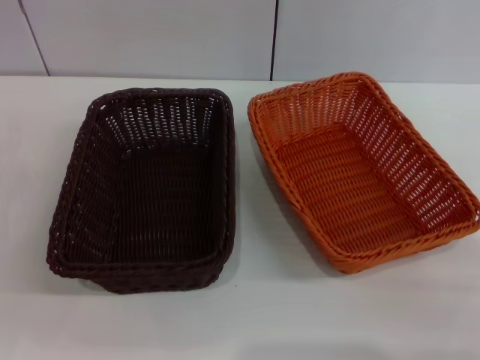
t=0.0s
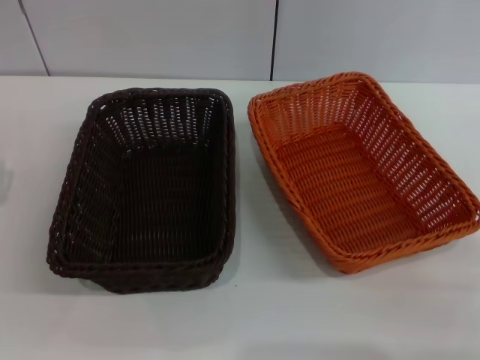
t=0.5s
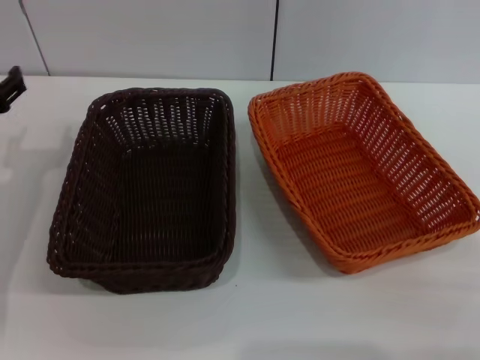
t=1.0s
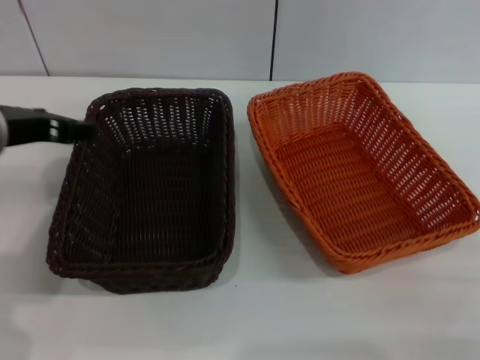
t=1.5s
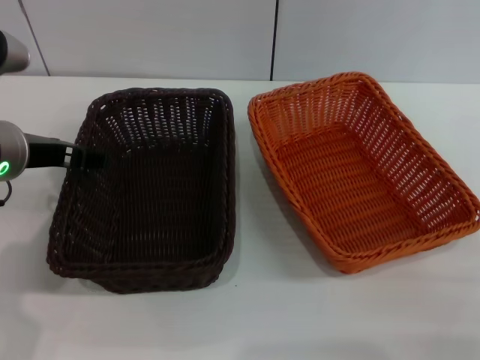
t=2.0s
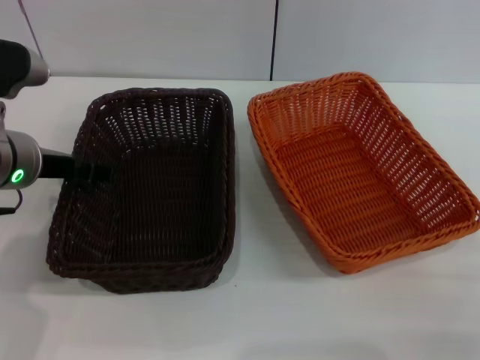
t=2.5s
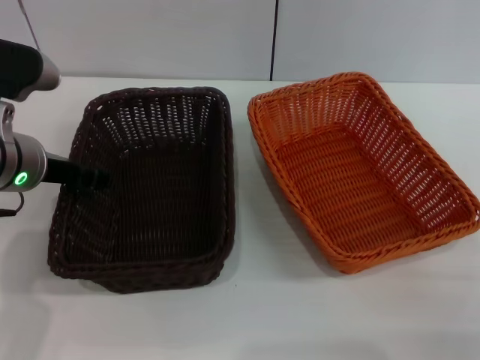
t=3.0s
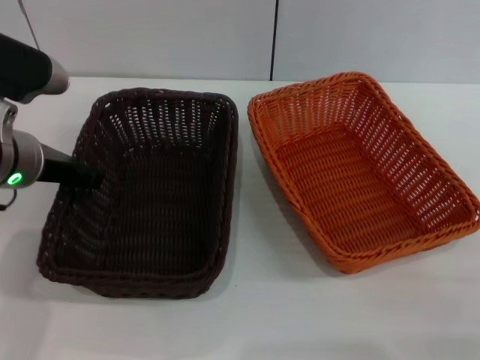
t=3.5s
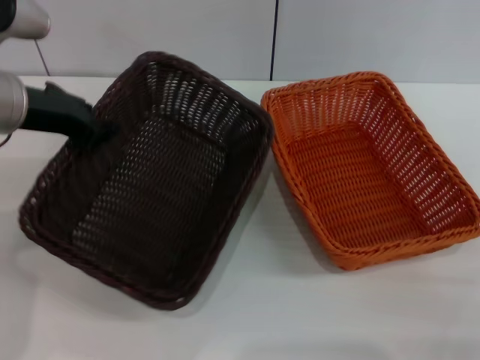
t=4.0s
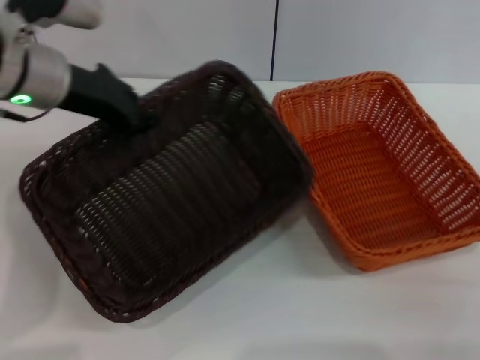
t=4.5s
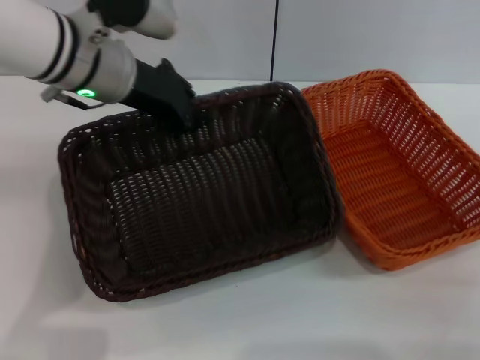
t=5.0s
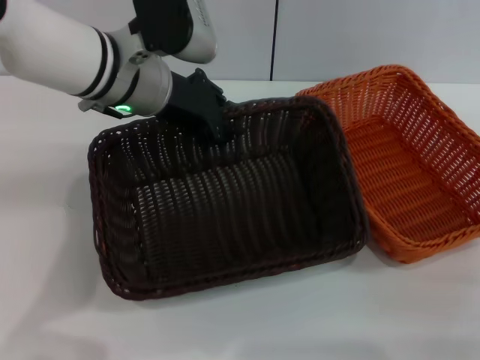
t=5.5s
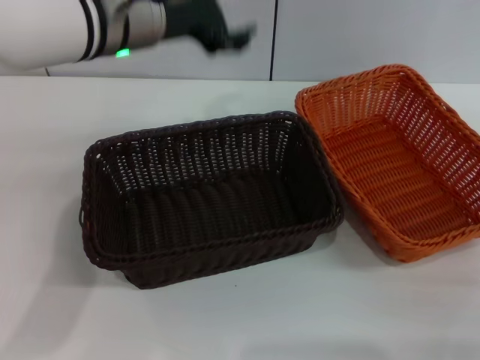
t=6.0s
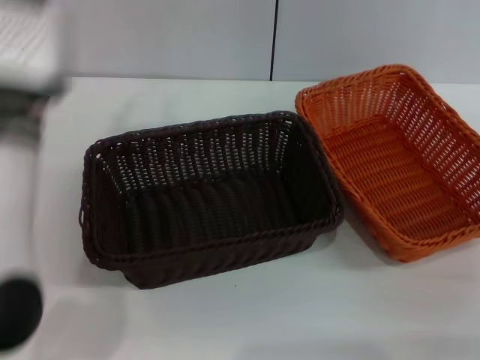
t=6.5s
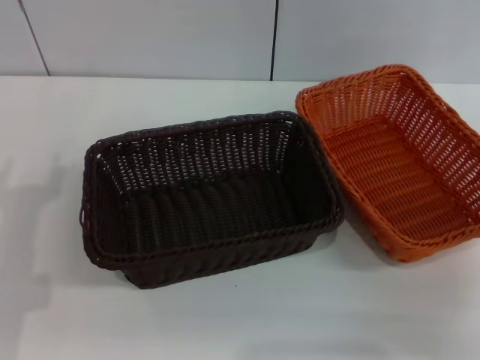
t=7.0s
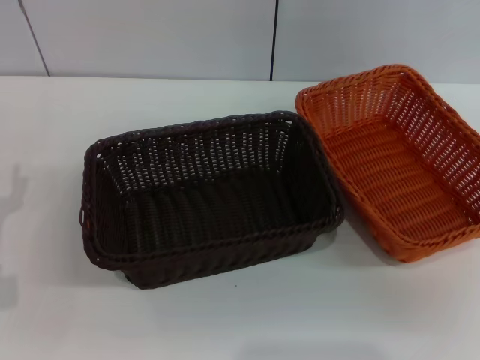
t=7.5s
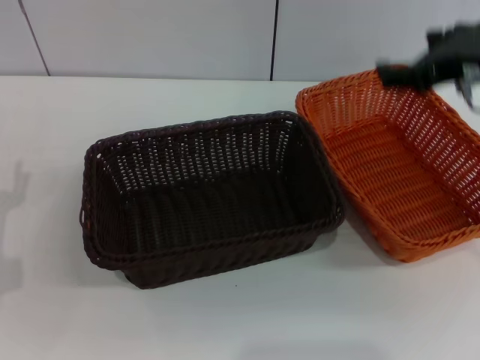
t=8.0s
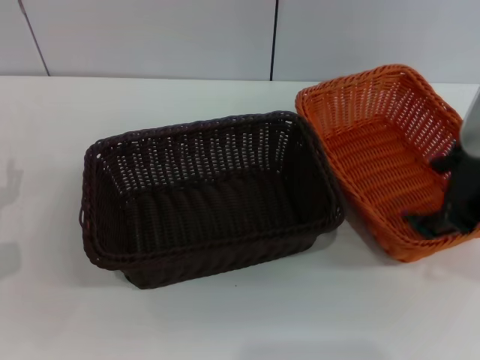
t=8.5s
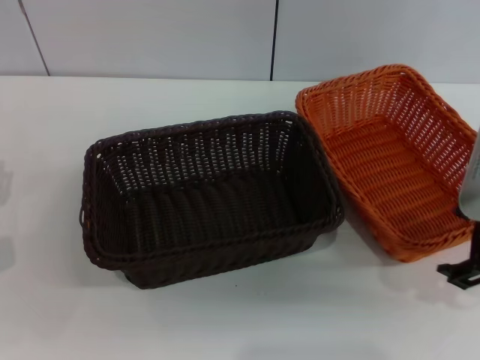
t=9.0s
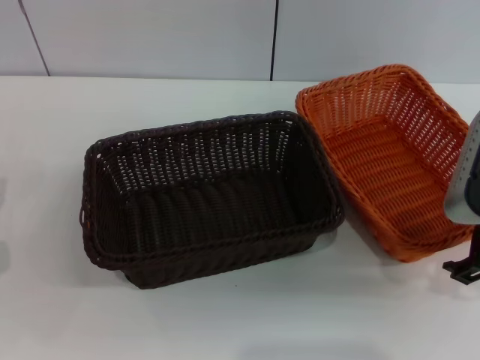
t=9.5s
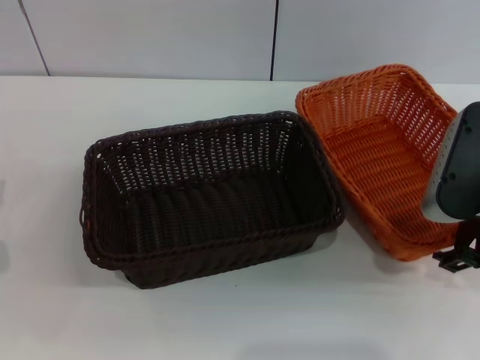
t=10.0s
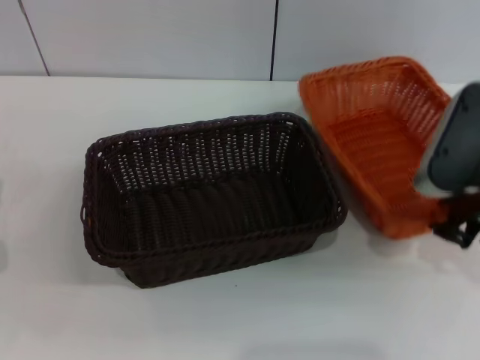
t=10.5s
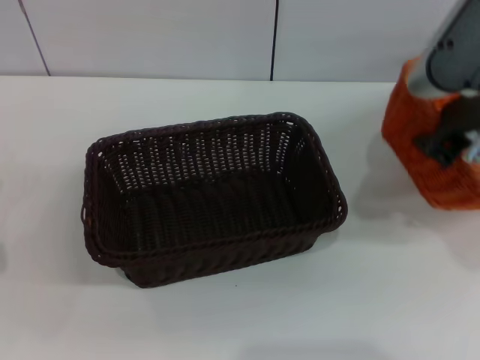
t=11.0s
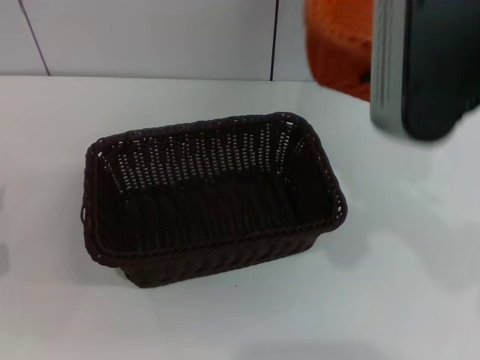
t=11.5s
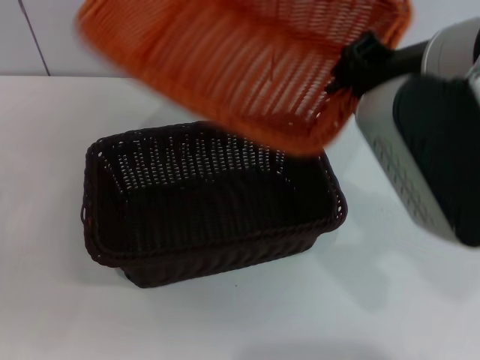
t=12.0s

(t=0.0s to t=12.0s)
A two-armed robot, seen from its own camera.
Step, t=0.0s - t=3.5s: Pick up the dark basket with the left gripper.
Step, t=4.0s - t=5.5s: Place the dark basket in the center of view with the left gripper.
Step, t=6.0s - t=10.5s: Pick up the light basket with the right gripper.
t=0.0s - t=2.0s: The left gripper goes roughly 20 cm upward, to the right and forward.
t=2.0s - t=4.0s: The left gripper closes.
t=4.0s - t=6.0s: The left gripper heads to the right, covering approximately 10 cm, and opens up.
t=6.0s - t=8.0s: The left gripper shifts approximately 30 cm downward, to the left and backward; the right gripper moves upward, to the left and forward, some 25 cm.
t=8.0s - t=10.0s: The right gripper is displaced downward by about 10 cm.
t=10.0s - t=12.0s: The right gripper travels upward and to the left by approximately 15 cm, and closes up.

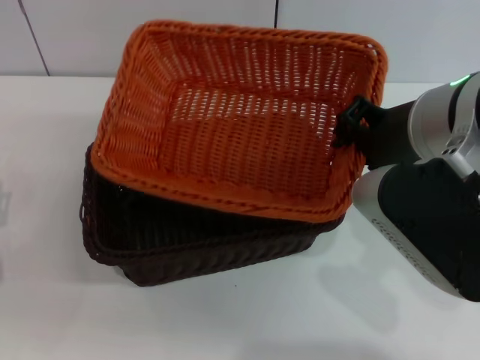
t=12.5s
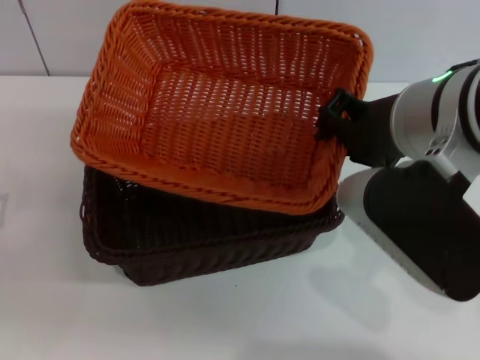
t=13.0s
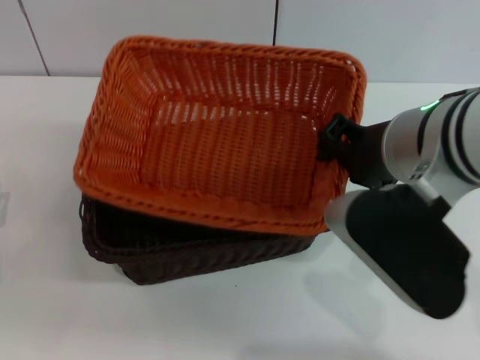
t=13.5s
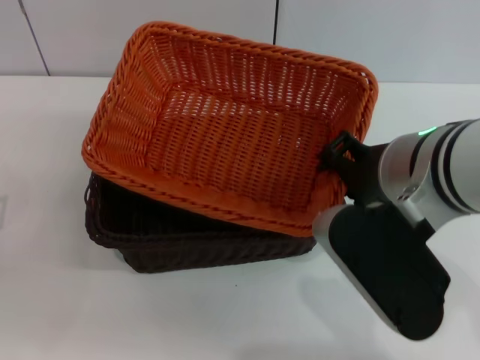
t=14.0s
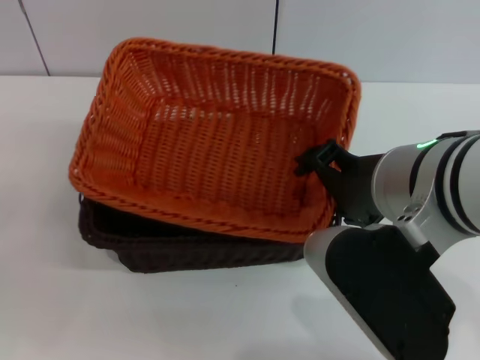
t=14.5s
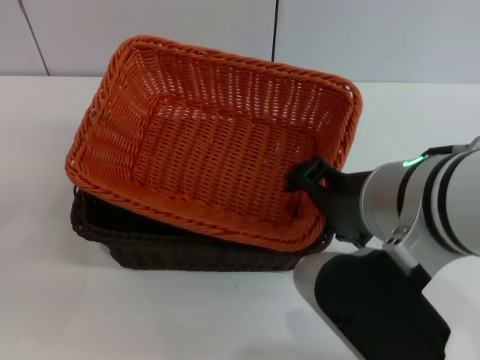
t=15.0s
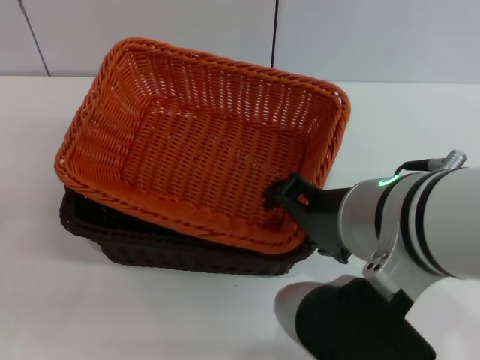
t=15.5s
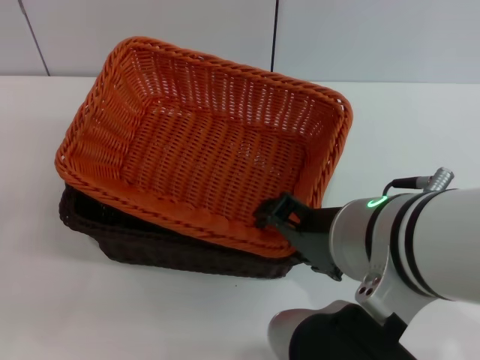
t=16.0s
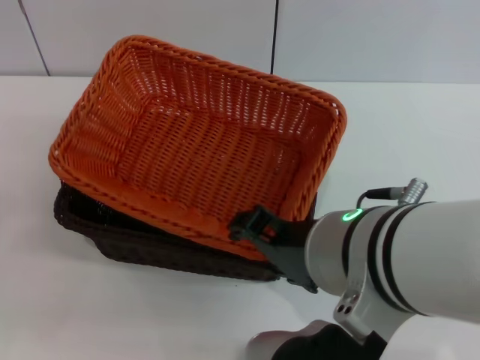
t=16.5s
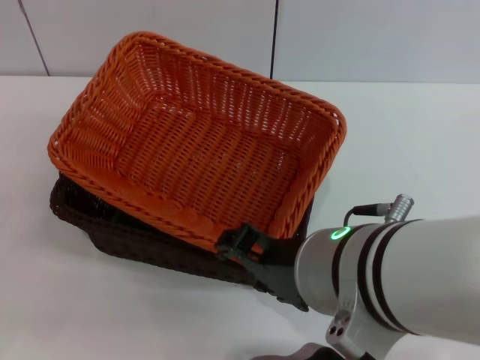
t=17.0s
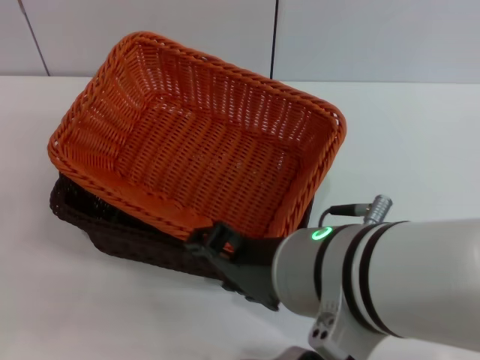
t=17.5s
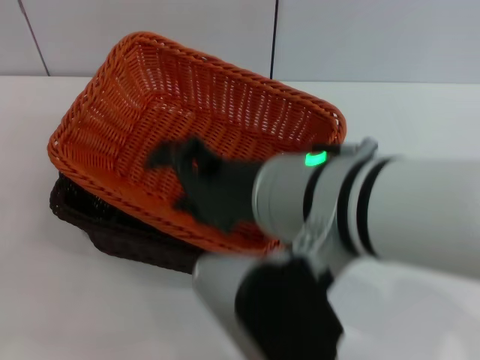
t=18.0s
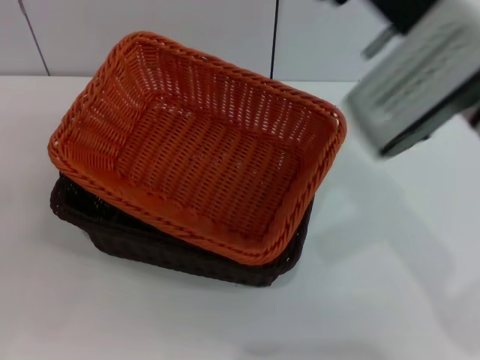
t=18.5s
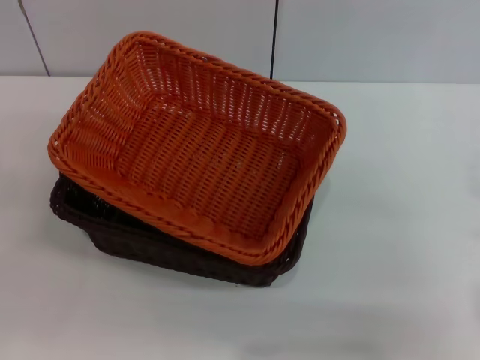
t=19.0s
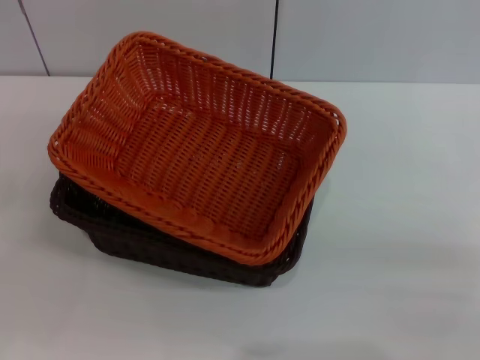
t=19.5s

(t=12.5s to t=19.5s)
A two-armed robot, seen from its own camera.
Step, t=12.5s - t=17.0s: Place the light basket on the dark basket with the right gripper.
t=12.5s - t=14.5s: The right gripper opens up.
t=17.5s - t=19.5s: The right gripper is displaced to the right and downward by approximately 30 cm.
